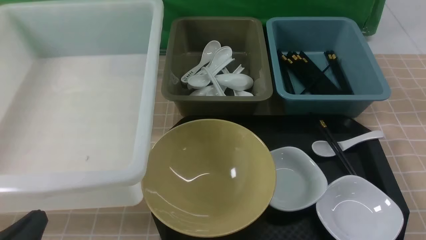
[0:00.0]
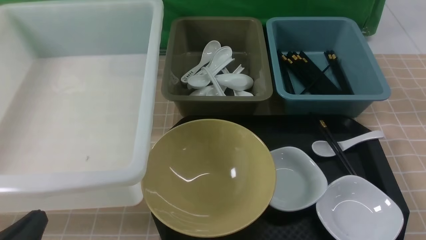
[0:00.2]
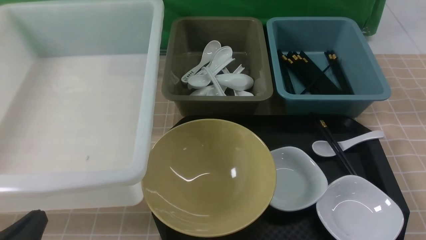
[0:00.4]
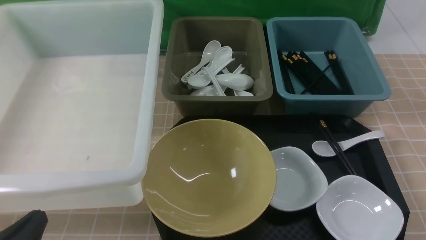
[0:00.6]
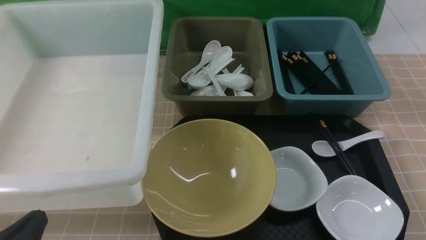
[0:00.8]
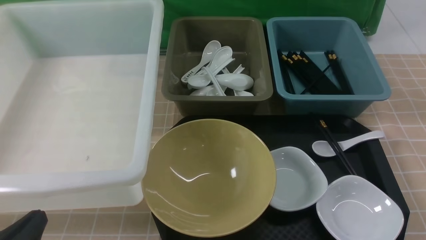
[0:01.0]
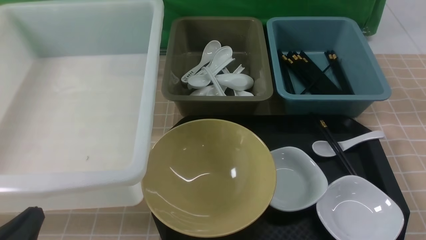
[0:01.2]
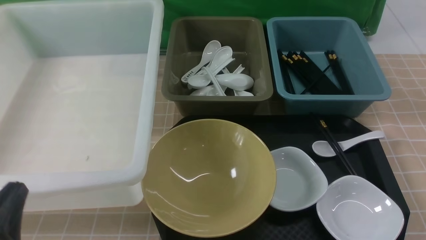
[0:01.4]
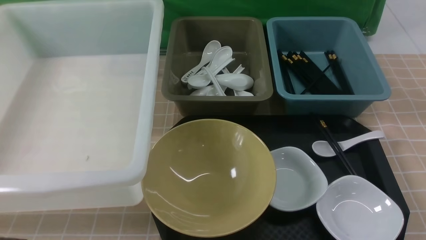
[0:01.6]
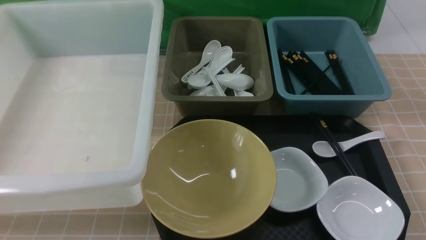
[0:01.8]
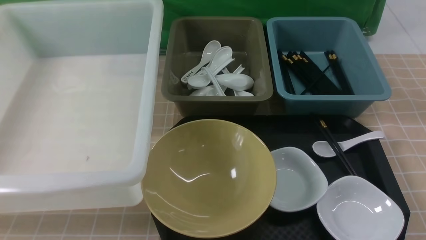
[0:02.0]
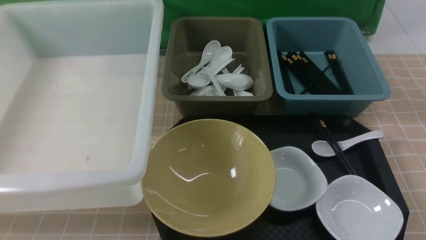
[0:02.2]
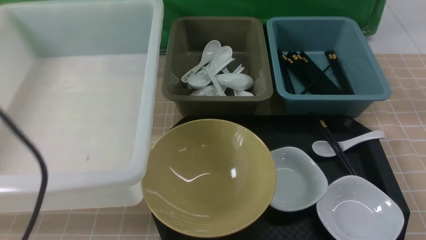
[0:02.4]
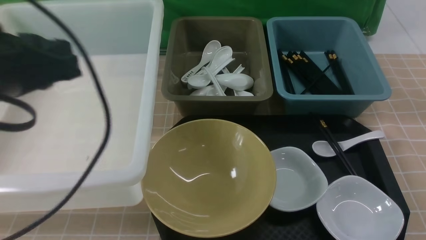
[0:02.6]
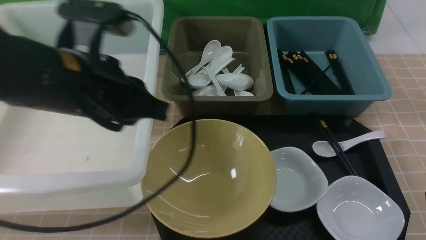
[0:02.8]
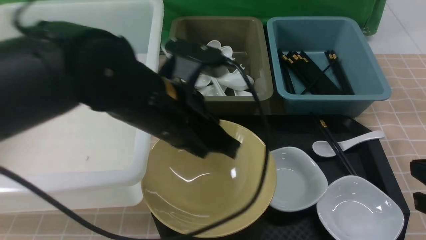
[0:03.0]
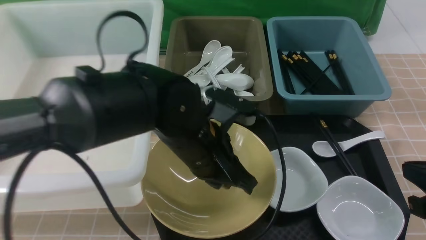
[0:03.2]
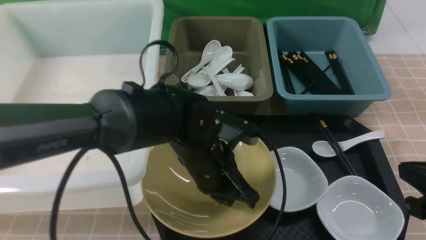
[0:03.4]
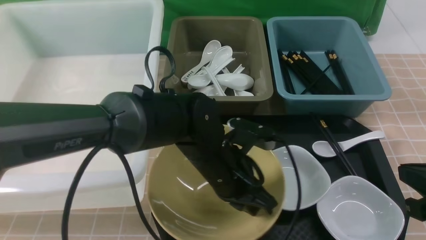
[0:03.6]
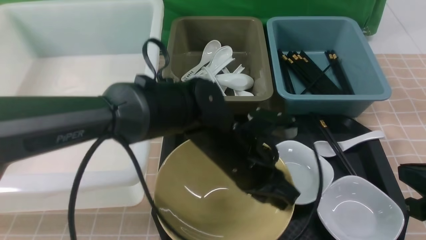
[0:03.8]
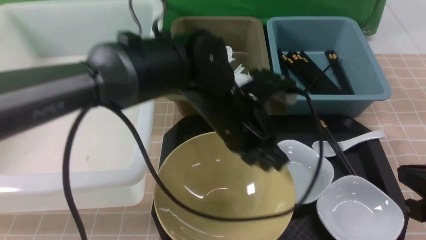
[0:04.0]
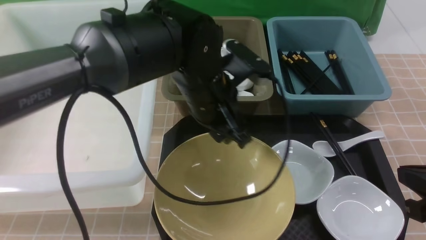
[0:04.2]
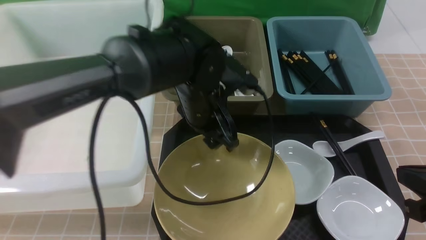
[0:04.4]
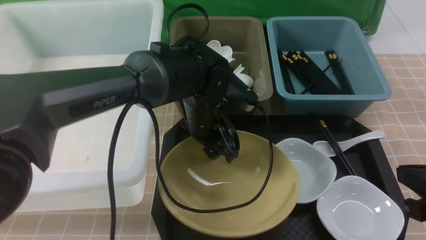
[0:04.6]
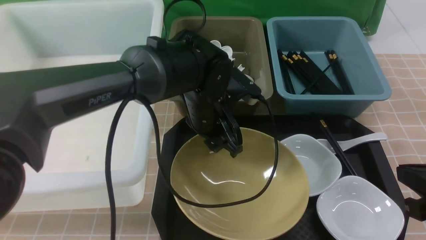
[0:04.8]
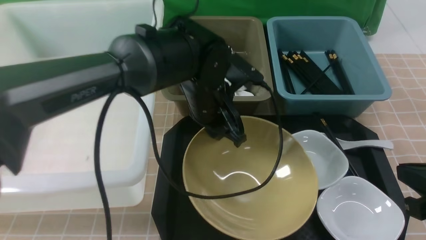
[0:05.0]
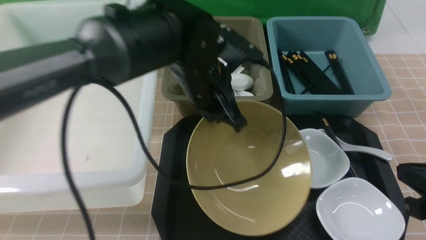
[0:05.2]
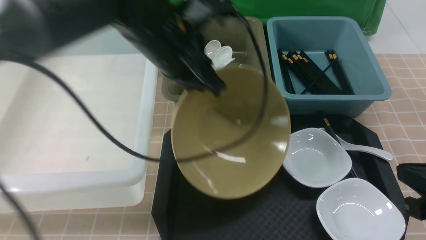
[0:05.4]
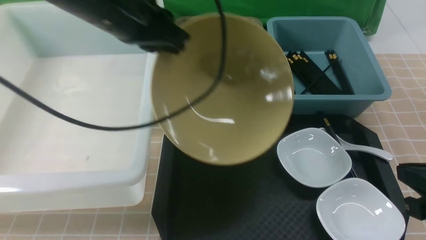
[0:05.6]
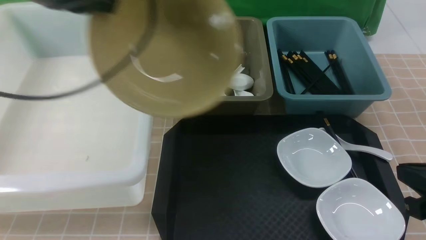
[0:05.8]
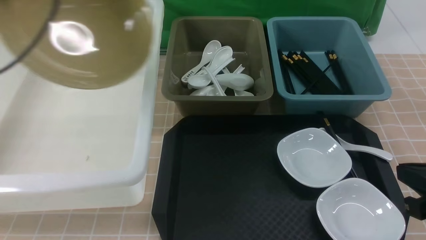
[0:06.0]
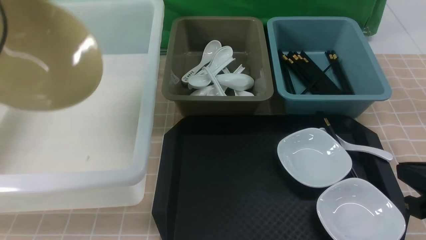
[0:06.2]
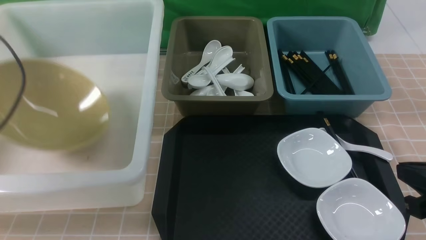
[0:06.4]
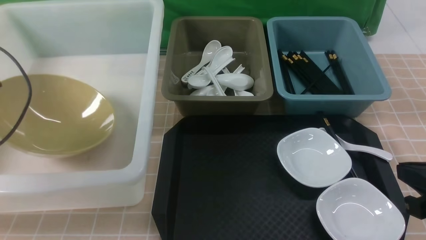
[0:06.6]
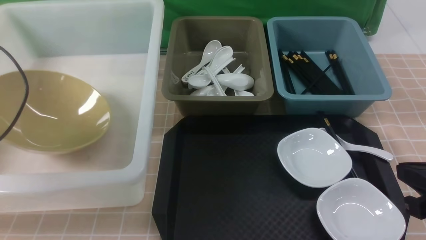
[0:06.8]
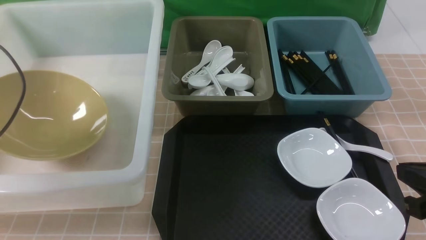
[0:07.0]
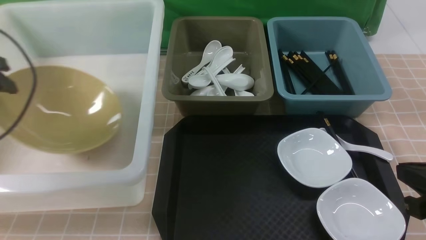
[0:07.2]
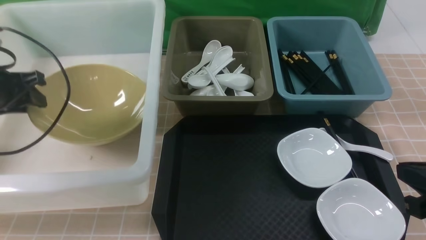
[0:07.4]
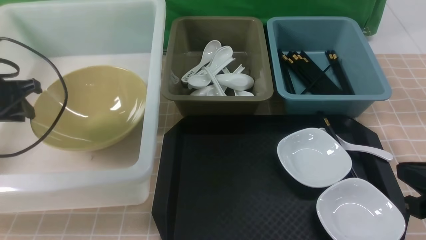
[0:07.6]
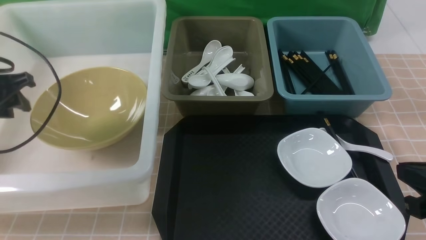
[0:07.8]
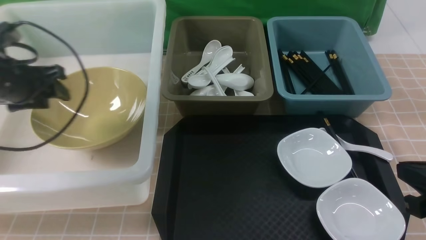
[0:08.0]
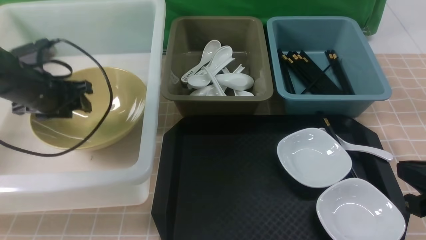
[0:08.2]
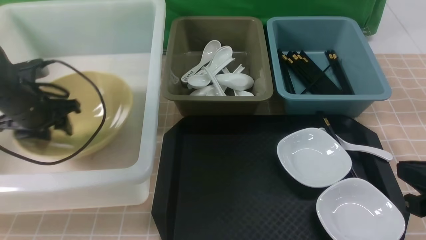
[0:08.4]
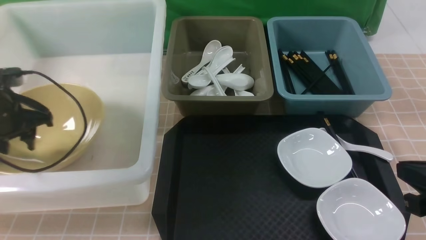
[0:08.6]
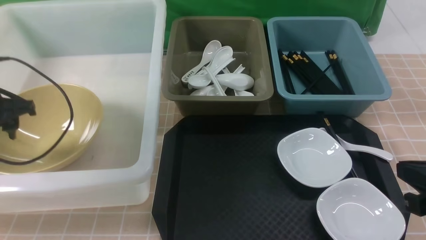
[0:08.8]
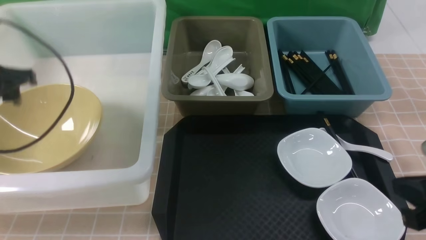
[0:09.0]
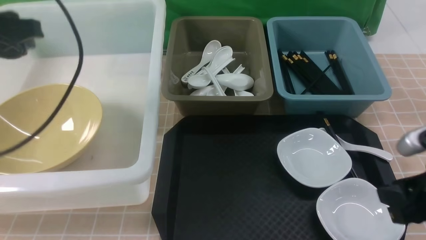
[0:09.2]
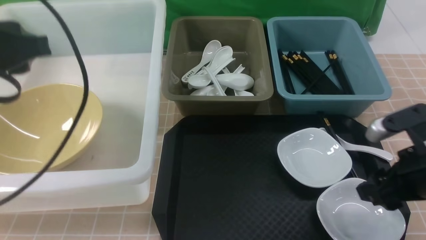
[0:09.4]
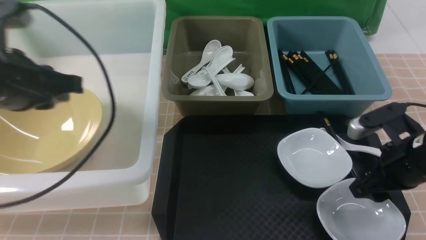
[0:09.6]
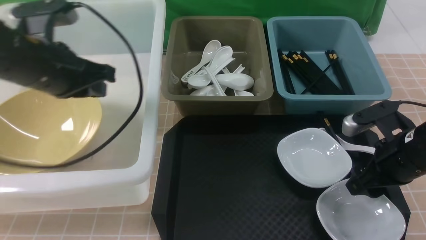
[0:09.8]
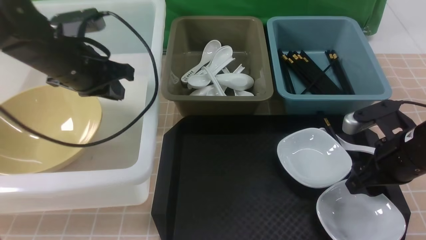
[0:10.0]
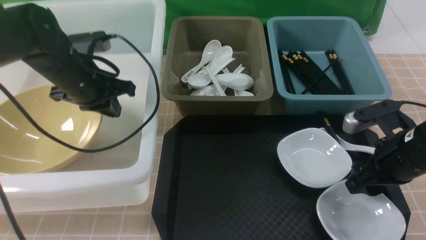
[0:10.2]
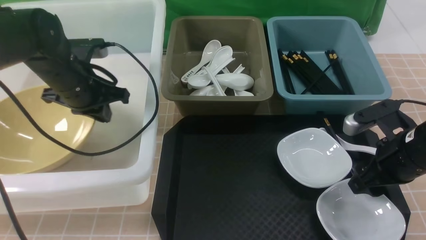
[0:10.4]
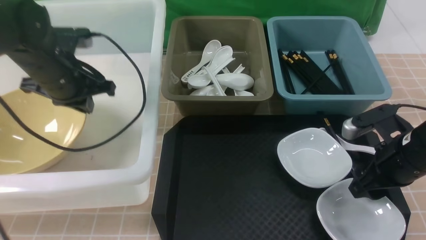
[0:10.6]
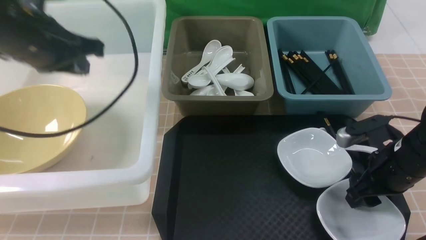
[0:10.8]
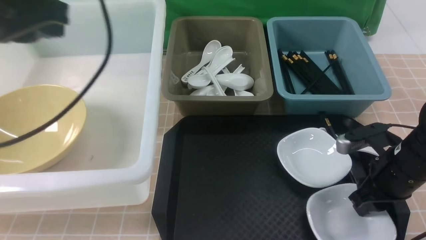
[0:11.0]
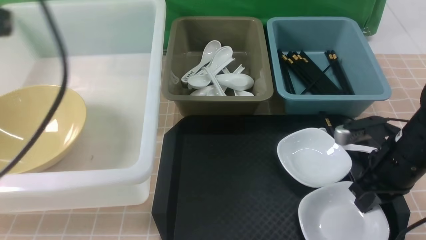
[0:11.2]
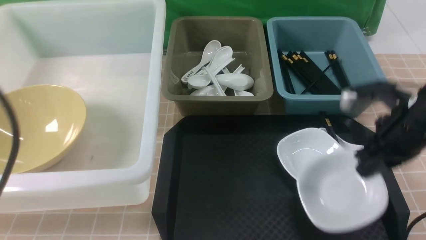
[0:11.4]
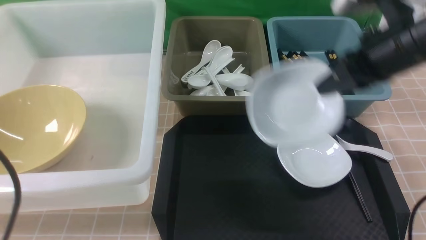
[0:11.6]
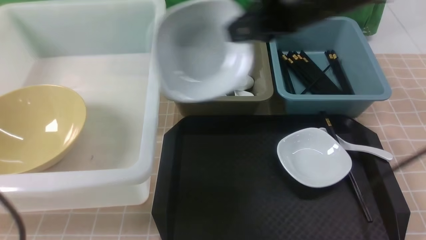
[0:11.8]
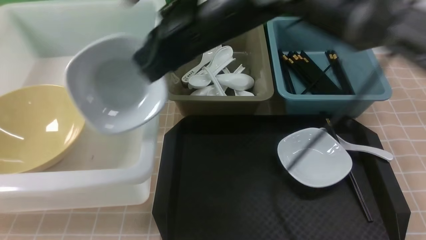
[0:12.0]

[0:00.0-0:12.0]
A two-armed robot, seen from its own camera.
Task of the whole recording: on brown table put chopsticks spoon bowls plates into blue grey white boxes.
Step, 0:00.0 to 0:05.2: use the left arm to grab the yellow noodle bowl on the left.
Step, 0:05.4 to 0:07.8: use the left arm to put the noodle bowl into the large storage box on the left.
Step, 0:08.0 to 0:11.4: use the right arm to grab the plate.
0:00.0 to 0:01.6: The left gripper is displaced upward by about 5 cm.
0:01.6 to 0:03.0: The left gripper heads forward and to the right, covering about 25 cm. Meanwhile the right gripper heads forward, covering about 10 cm, and closes up.
0:03.0 to 0:04.4: The left gripper goes some 10 cm forward and downward, and opens its fingers.
0:04.4 to 0:06.0: The left gripper moves to the left and upward, roughly 35 cm, and closes.
0:06.0 to 0:07.6: The left gripper travels downward by some 15 cm, and opens its fingers.
0:07.6 to 0:09.0: The left gripper shifts approximately 10 cm upward and to the right, and opens its fingers.
0:09.0 to 0:10.4: The right gripper travels forward and downward by some 10 cm, and opens up. The left gripper goes some 10 cm to the right, downward and forward, and closes up.
0:10.4 to 0:12.0: The right gripper shifts about 30 cm to the left and upward, and closes up. The left gripper goes roughly 35 cm backward.

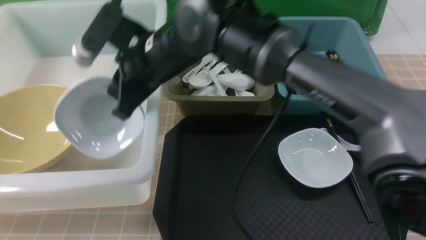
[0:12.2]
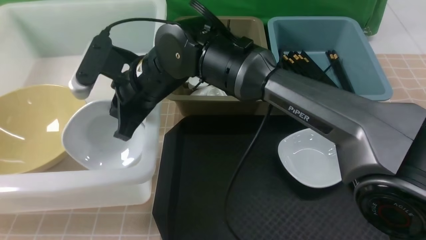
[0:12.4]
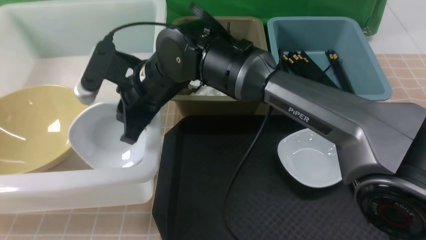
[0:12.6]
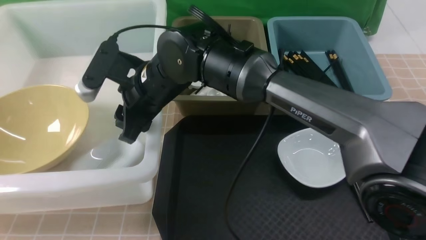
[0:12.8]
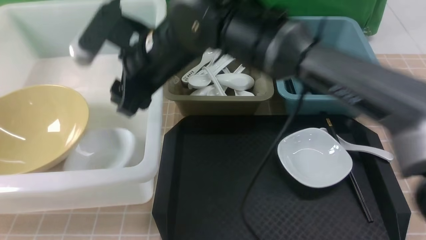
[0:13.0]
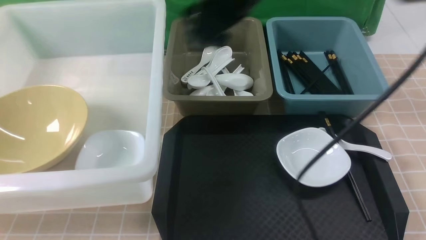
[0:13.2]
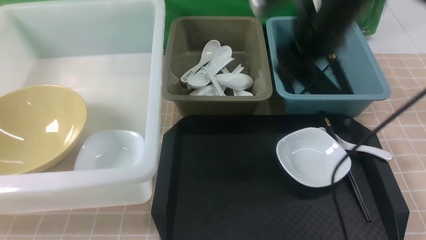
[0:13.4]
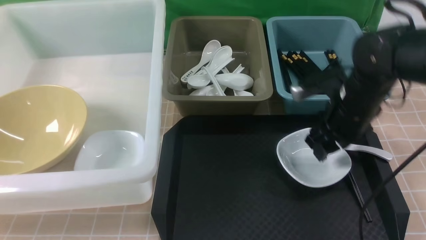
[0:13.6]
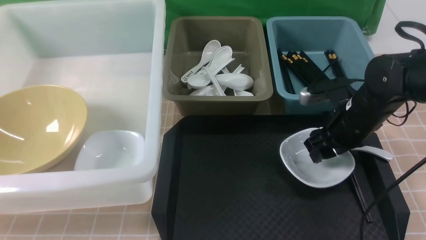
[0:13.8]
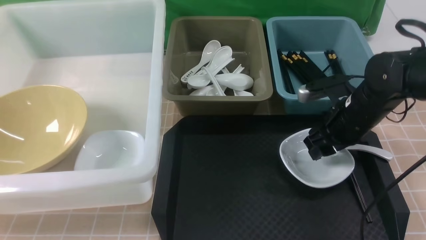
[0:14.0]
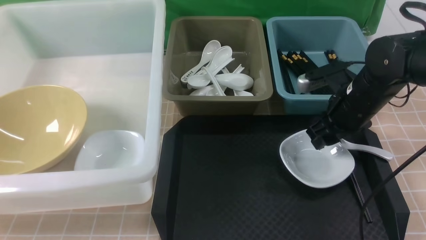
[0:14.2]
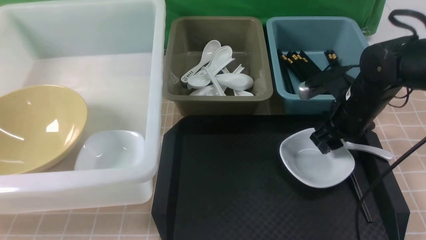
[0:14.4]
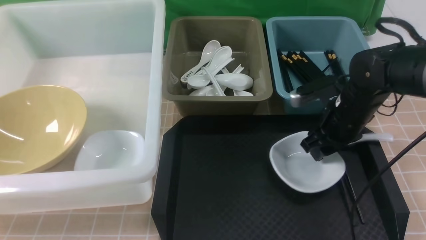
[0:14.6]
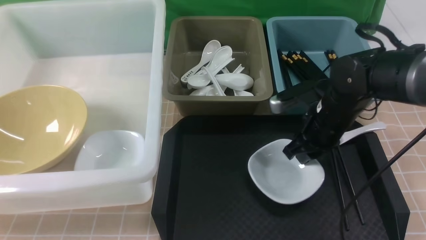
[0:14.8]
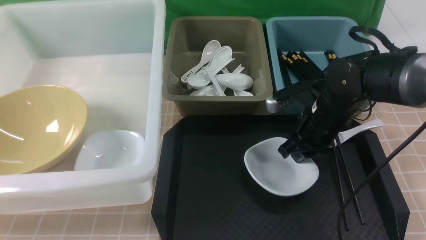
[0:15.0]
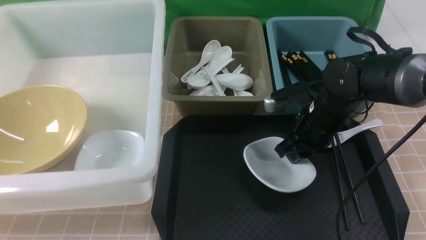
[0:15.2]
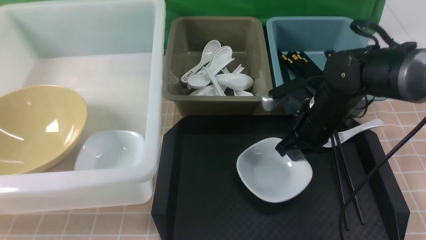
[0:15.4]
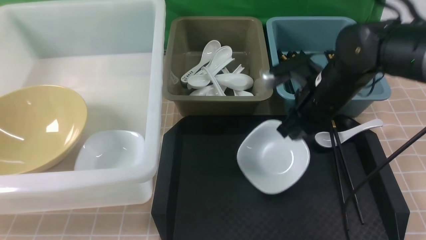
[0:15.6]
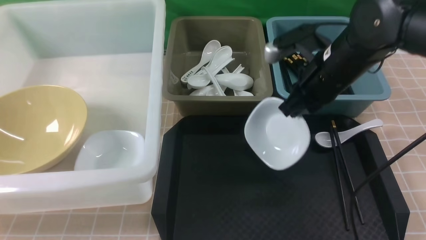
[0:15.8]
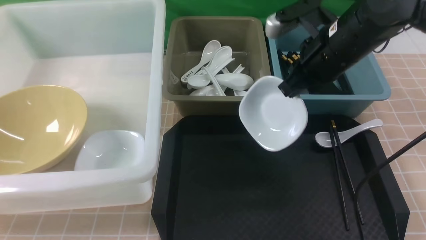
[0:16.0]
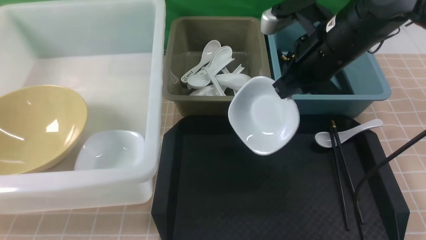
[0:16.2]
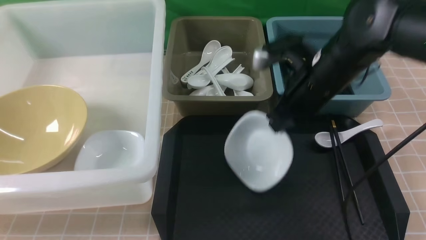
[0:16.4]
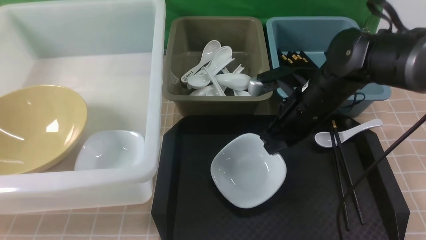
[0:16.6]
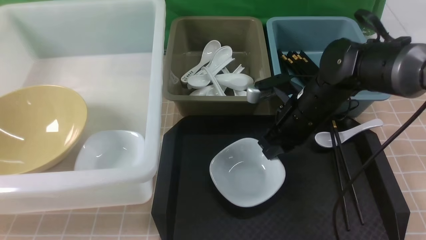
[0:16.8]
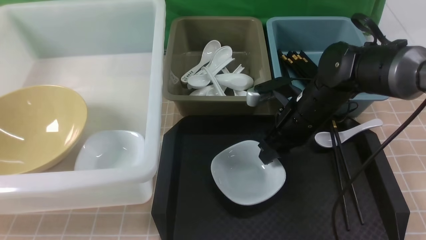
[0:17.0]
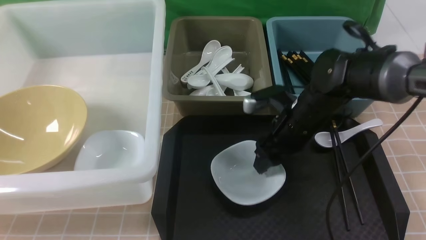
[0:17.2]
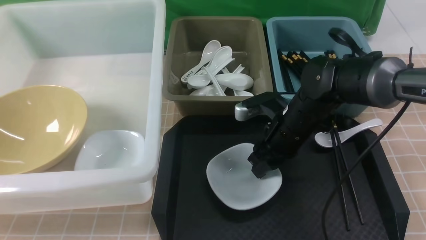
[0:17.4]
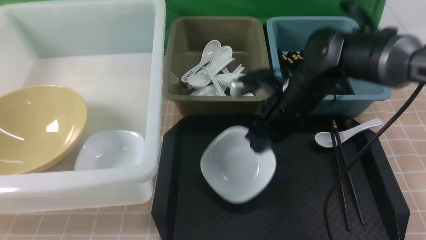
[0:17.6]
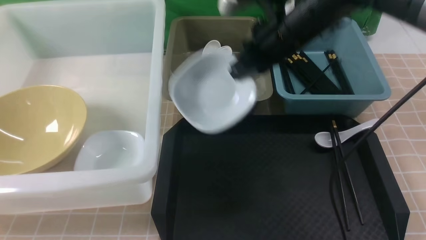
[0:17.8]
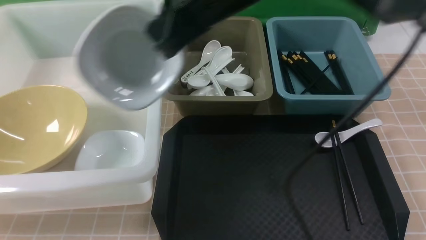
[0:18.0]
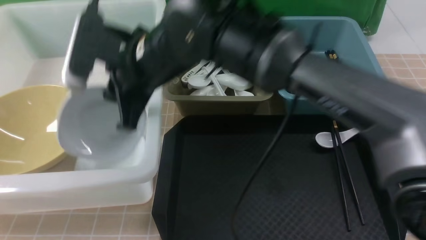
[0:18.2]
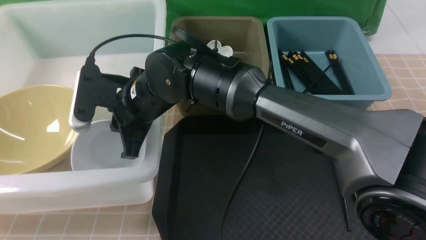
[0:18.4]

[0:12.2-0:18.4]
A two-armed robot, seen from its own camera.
Task of the whole recording: on brown table put chopsticks spoon bowls plates into blue grey white boxes.
Step, 0:12.2 to 0:13.0: use the right arm to put the plate into the large storage box on the left.
Step, 0:13.2 to 0:15.8: use the right arm to grab the plate.
0:12.2 to 0:13.8: The right gripper moves to the right and downward, some 30 cm, and opens its fingers.
0:13.8 to 0:15.4: The right gripper moves to the left, approximately 5 cm, and closes its fingers.
0:15.4 to 0:16.8: The right gripper moves approximately 10 cm upward and comes back.
0:16.8 to 0:18.4: The right gripper moves to the left, about 25 cm, and opens, then closes again.
